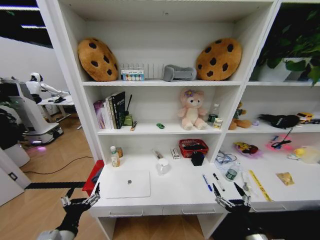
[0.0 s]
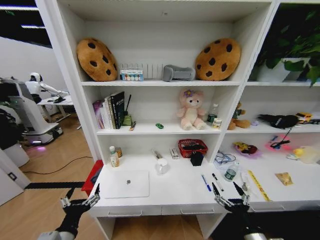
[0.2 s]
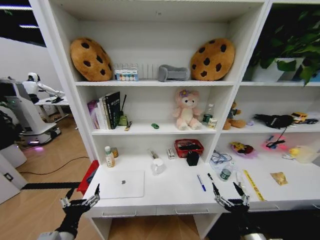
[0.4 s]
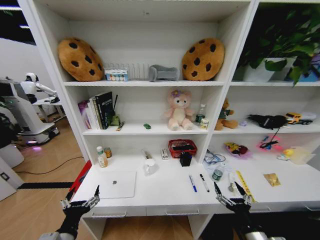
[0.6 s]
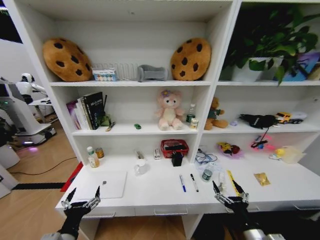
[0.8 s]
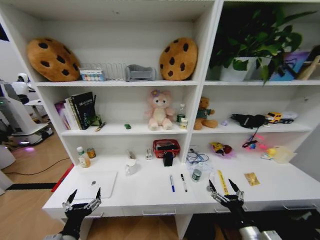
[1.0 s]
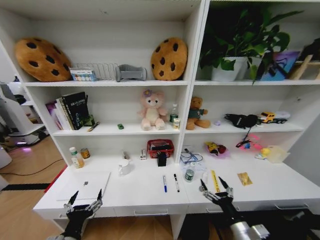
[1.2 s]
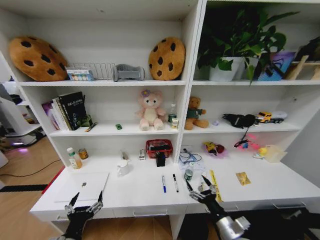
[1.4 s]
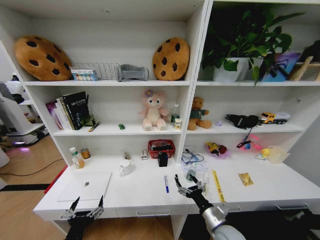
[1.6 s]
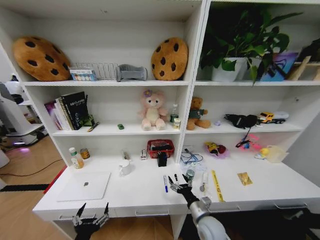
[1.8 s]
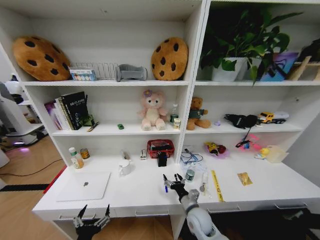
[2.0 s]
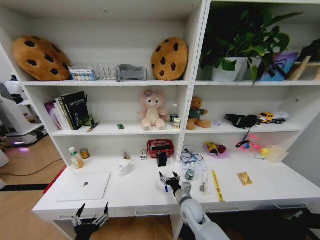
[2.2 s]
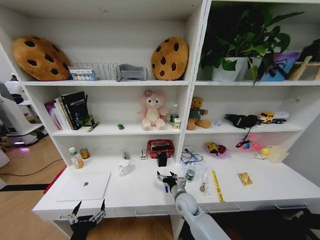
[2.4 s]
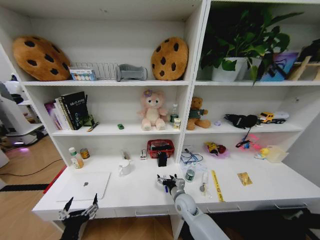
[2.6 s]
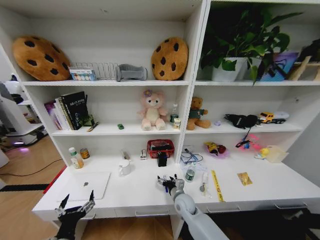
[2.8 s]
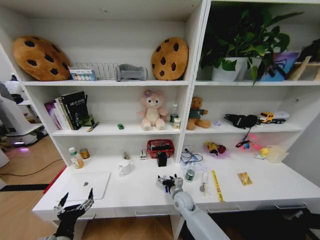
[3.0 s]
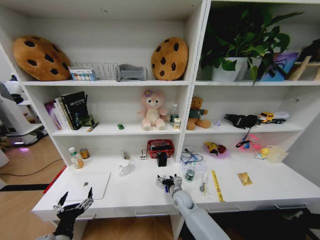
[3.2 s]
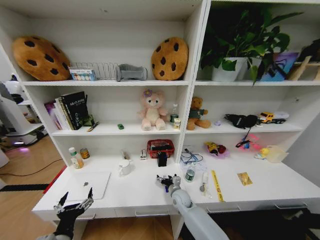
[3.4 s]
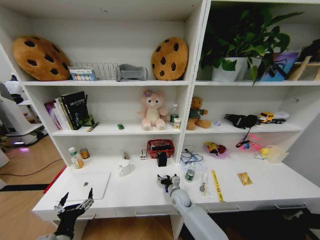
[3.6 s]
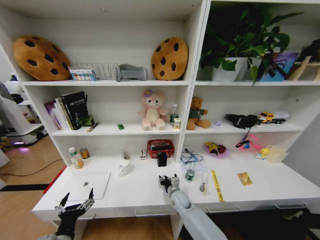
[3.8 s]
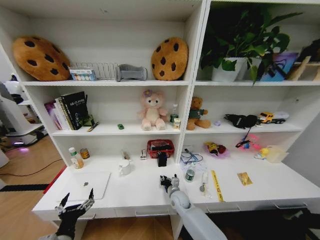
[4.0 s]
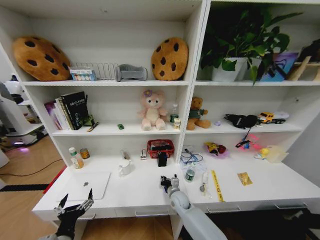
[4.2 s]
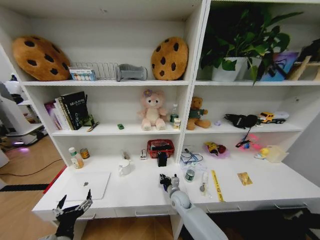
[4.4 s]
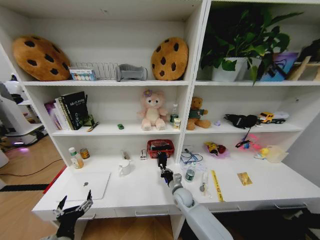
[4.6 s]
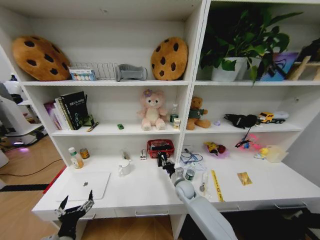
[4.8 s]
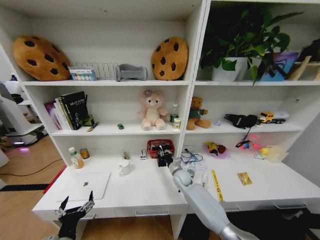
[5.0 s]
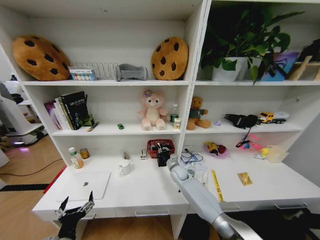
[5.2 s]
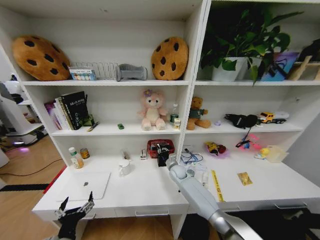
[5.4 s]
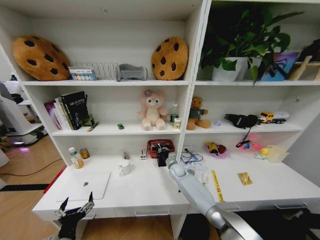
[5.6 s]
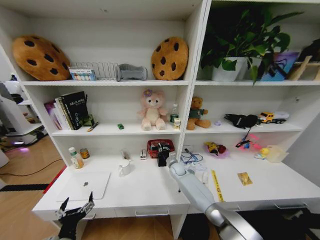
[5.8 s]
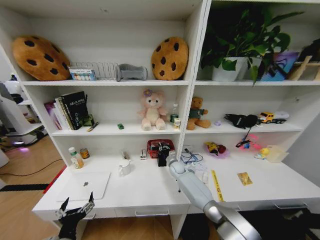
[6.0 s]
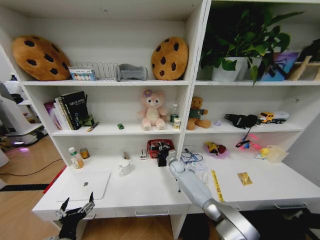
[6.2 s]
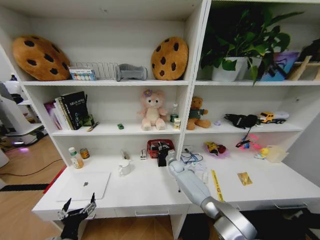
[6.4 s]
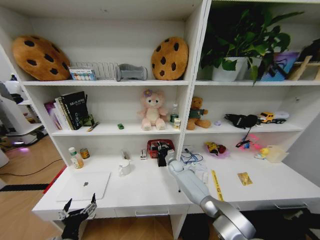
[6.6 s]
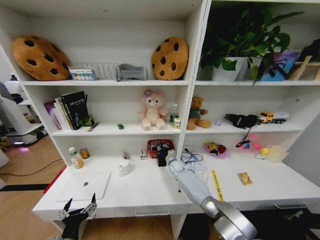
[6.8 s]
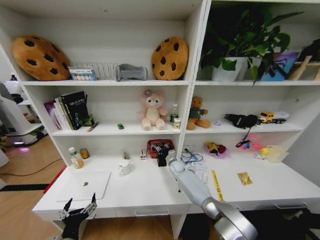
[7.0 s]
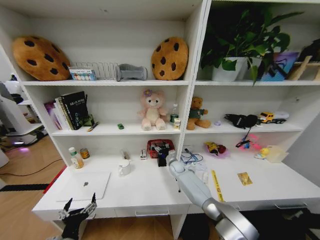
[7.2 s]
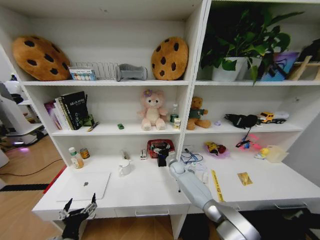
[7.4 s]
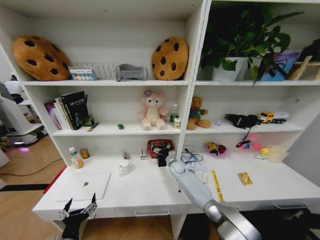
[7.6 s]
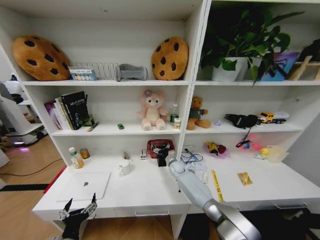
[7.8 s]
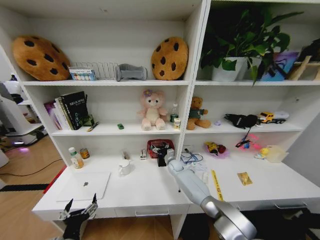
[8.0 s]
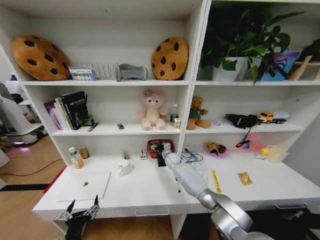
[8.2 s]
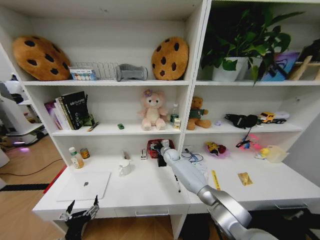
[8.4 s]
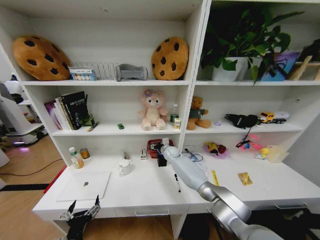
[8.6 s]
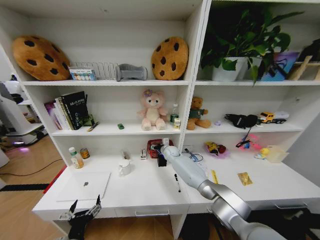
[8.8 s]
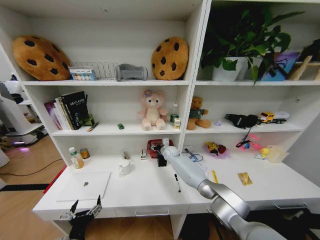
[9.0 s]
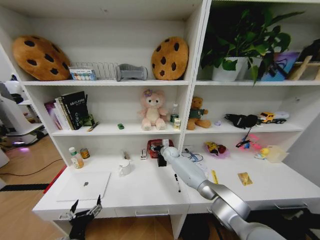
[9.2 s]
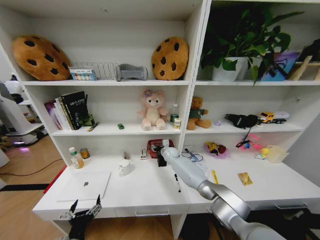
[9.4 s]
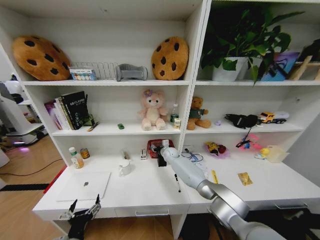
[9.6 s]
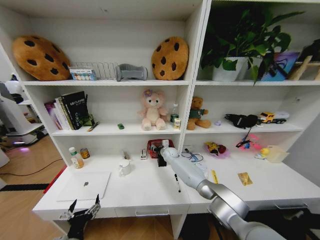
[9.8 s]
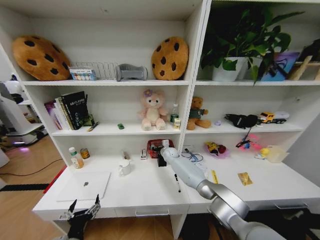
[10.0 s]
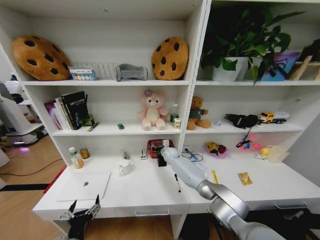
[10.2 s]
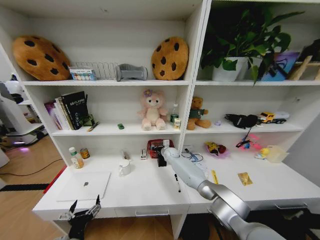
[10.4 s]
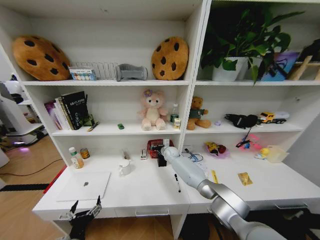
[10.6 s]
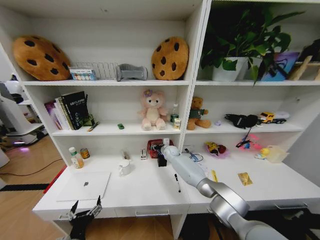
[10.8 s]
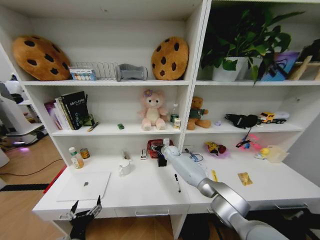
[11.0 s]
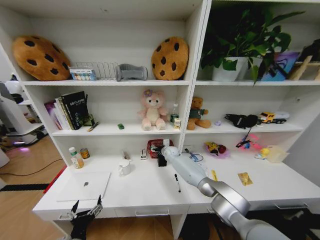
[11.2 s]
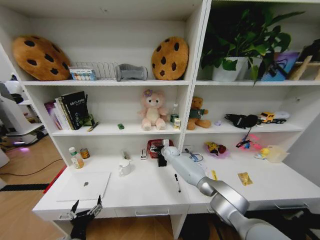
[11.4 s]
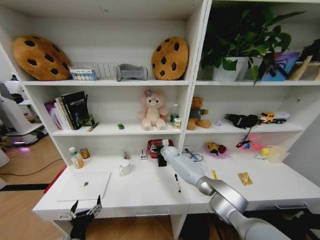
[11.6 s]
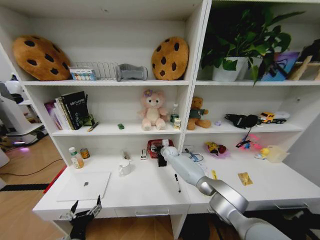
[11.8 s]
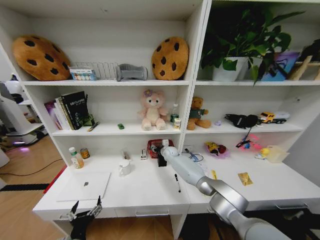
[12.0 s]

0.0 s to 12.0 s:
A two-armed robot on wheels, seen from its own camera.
Task of the whole recording: Organize the objects on the table.
0.0 to 1.6 s: The right gripper goes about 15 cm forward and to the left.
1.6 to 3.0 s: The right gripper moves forward, to the left and downward, some 20 cm.
3.0 to 4.4 s: The right gripper closes up.
4.4 to 6.0 s: The right gripper shifts roughly 15 cm forward.
7.6 to 9.0 s: The right gripper heads upward and forward, covering approximately 10 cm, and closes its fingers.
10.4 to 12.0 s: The right gripper opens its fingers.

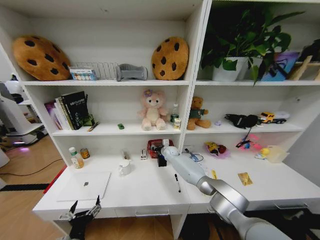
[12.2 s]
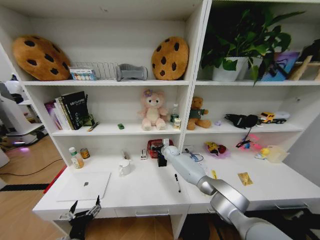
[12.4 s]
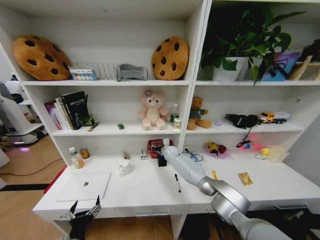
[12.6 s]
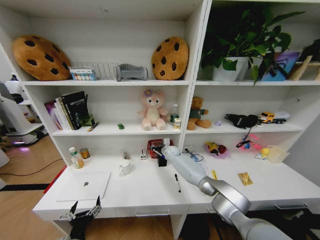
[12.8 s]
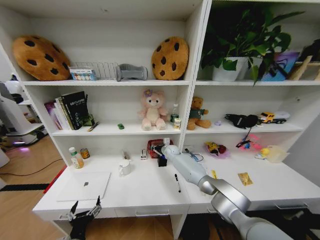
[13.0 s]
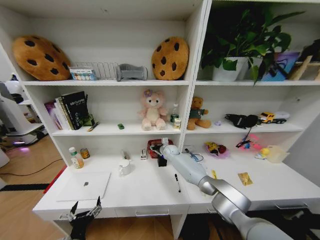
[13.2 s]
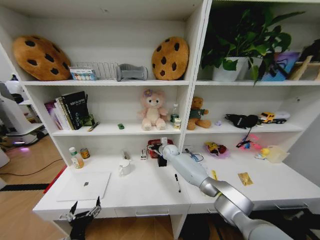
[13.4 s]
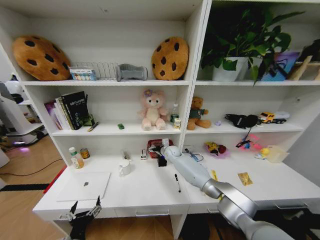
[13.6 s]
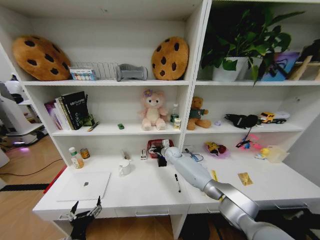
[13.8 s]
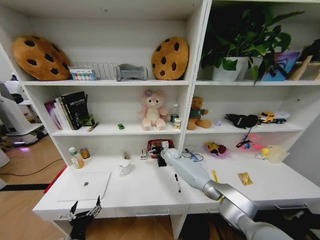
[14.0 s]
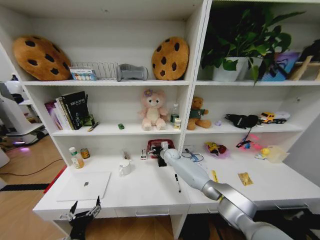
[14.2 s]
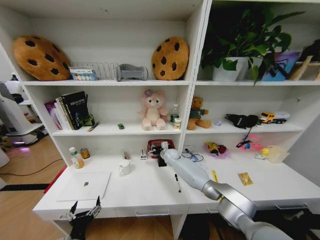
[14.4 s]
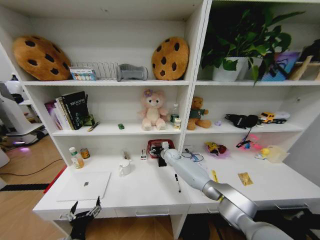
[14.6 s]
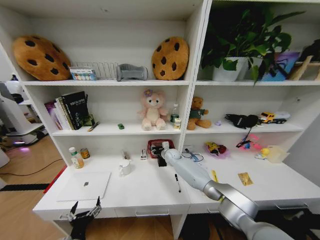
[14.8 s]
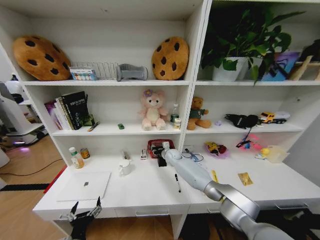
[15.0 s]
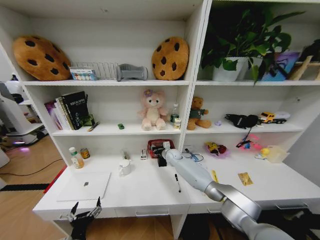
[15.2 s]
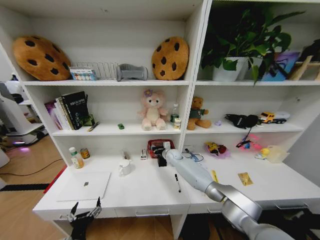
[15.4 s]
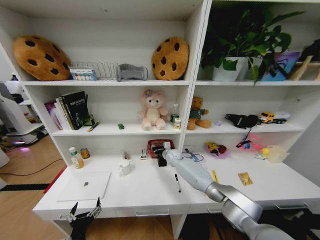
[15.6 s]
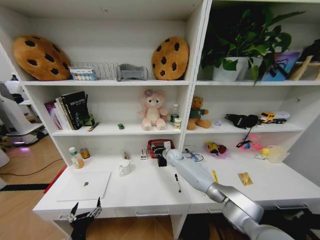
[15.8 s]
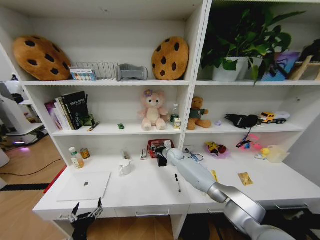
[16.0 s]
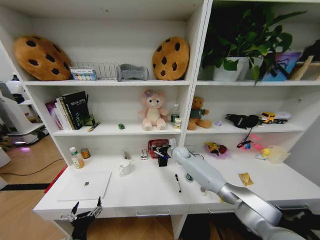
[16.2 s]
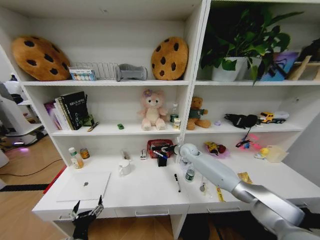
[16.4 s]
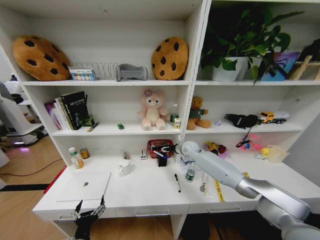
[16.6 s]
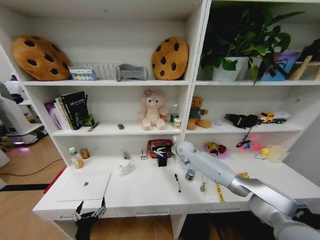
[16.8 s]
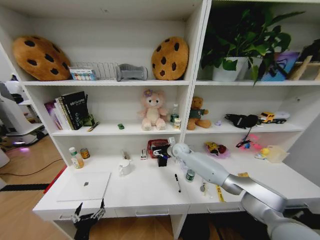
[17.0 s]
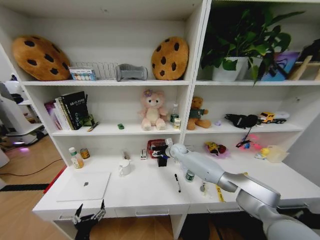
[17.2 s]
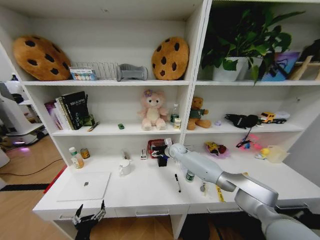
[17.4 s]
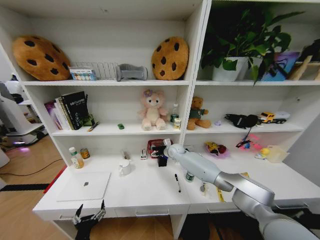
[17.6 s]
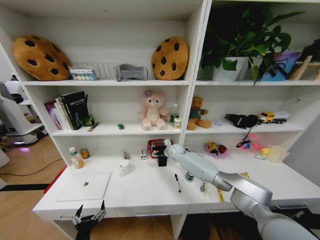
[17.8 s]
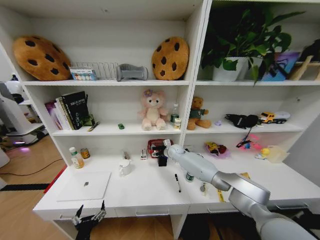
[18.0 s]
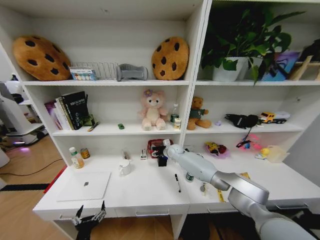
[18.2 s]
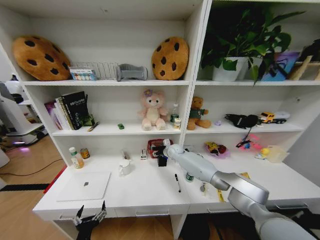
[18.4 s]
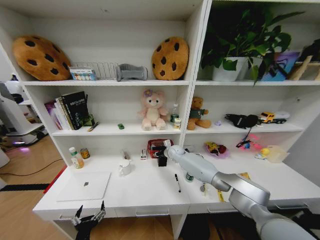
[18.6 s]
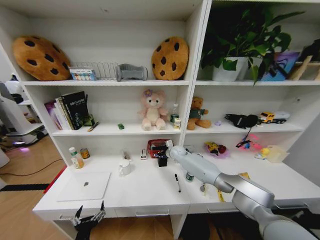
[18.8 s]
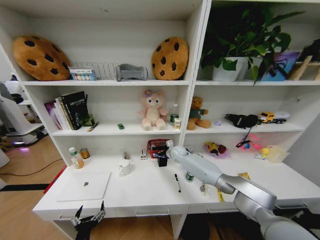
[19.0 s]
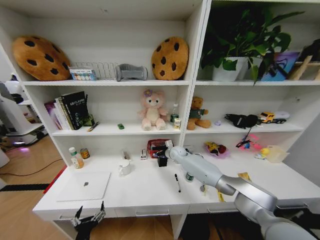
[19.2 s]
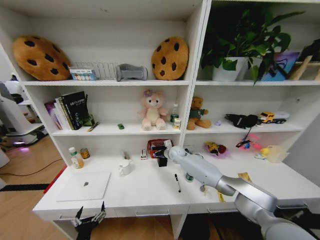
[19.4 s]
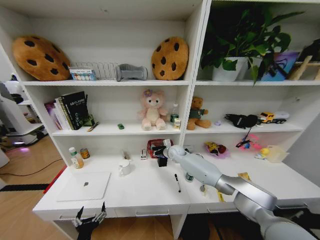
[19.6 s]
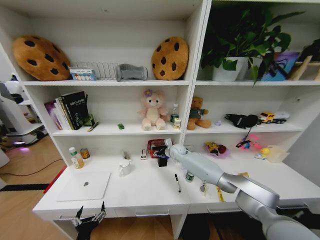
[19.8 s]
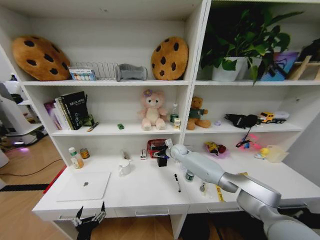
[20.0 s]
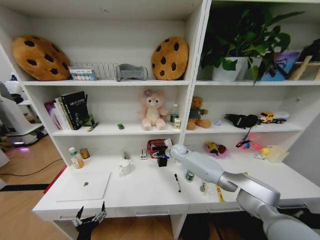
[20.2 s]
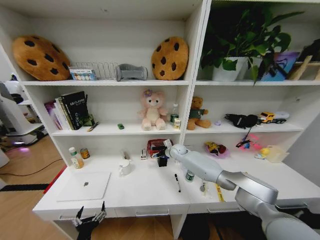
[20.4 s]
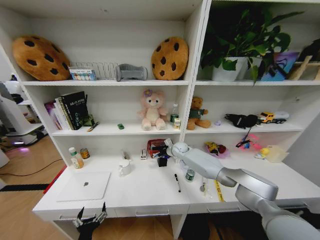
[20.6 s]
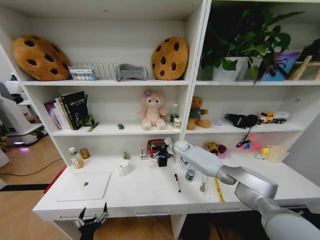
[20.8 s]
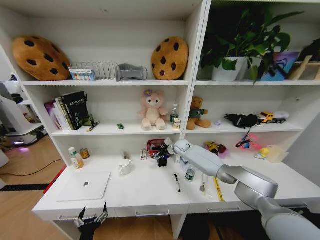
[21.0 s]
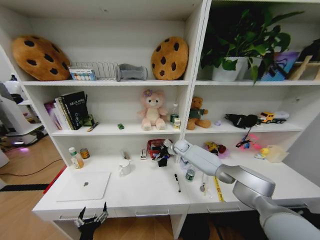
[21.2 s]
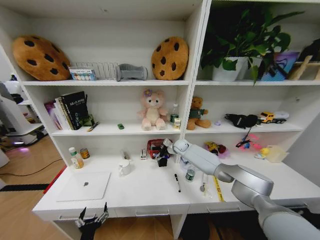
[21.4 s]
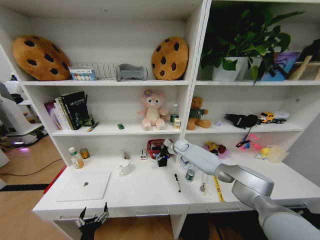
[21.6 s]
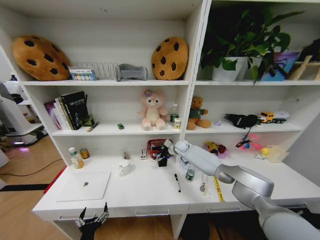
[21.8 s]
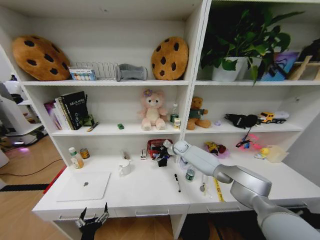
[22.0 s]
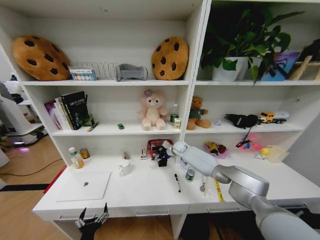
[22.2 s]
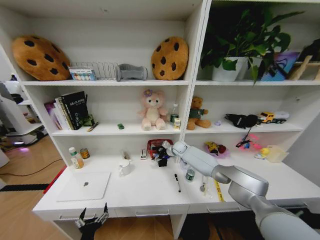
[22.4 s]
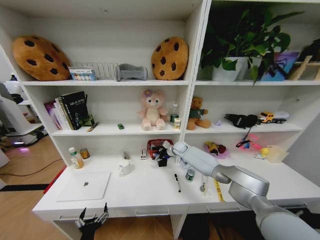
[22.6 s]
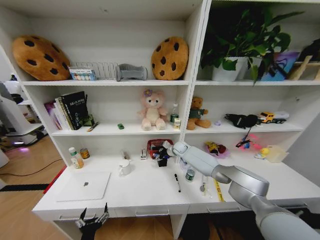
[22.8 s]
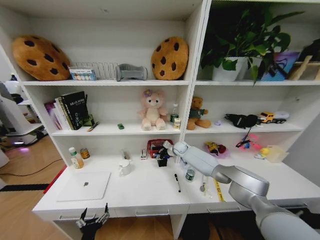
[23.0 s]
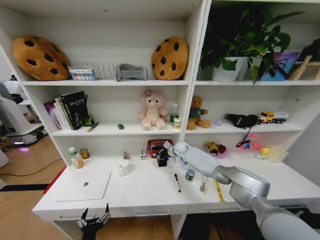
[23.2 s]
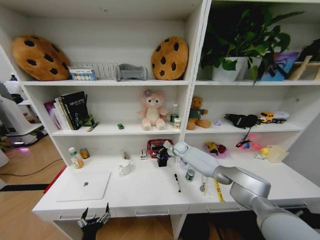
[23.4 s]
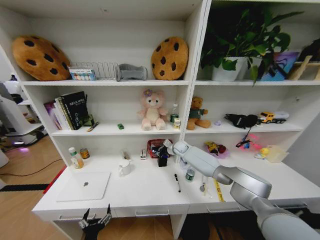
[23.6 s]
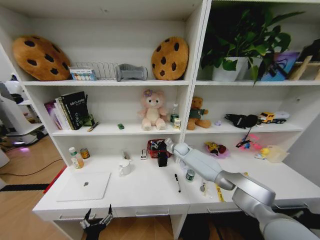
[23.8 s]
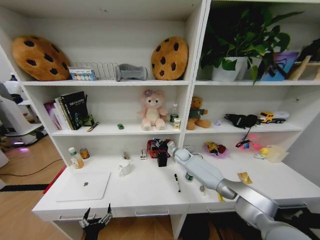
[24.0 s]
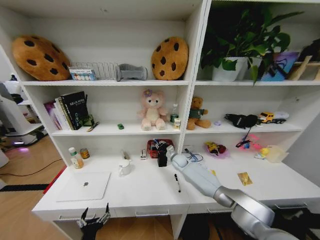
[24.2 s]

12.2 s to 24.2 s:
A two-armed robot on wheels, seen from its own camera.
Task of the whole recording: Organize the objects on the table.
12.2 to 13.8 s: The right gripper opens.
13.8 to 15.2 s: The right gripper closes.
15.2 to 16.6 s: The right gripper heads upward and to the right, covering about 10 cm, and opens up.
16.6 to 18.2 s: The right gripper travels to the left and downward by roughly 10 cm.
18.2 to 19.8 s: The right gripper closes up.
19.8 to 21.2 s: The right gripper moves some 5 cm, and opens its fingers.
21.2 to 22.6 s: There are only small adjustments of the grippers.
22.6 to 24.2 s: The right gripper heads backward and downward, covering approximately 10 cm, and closes.
